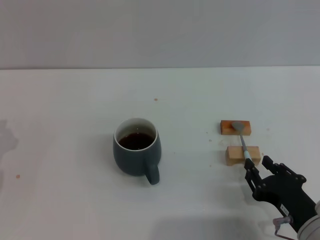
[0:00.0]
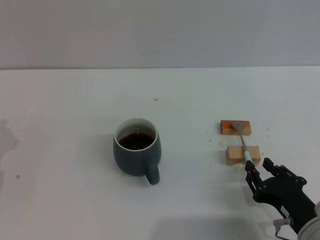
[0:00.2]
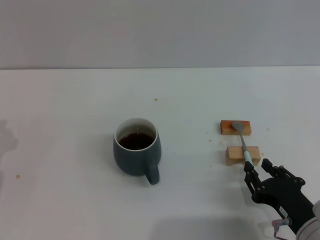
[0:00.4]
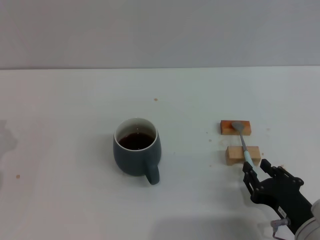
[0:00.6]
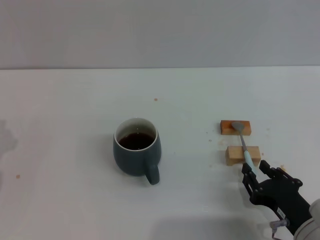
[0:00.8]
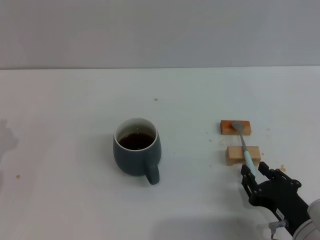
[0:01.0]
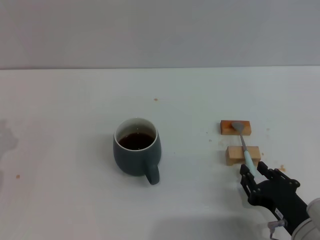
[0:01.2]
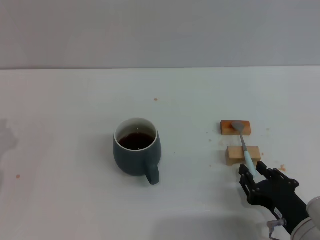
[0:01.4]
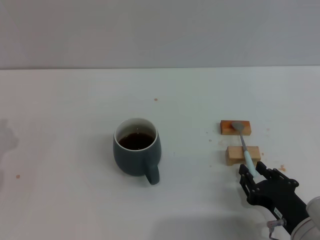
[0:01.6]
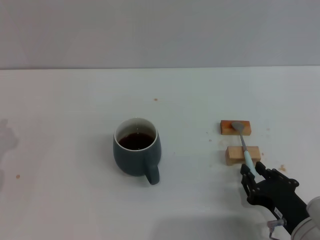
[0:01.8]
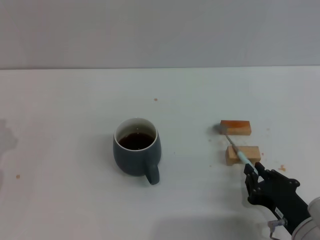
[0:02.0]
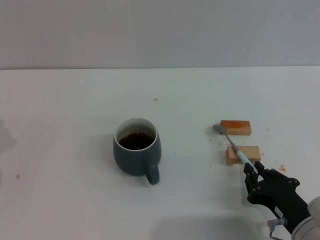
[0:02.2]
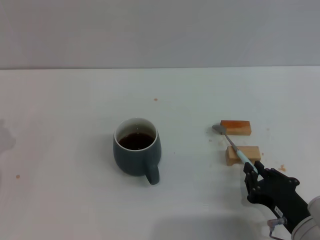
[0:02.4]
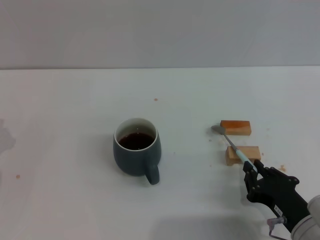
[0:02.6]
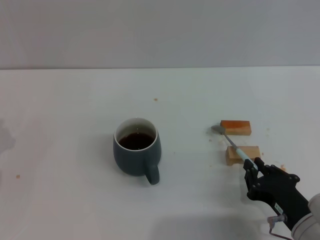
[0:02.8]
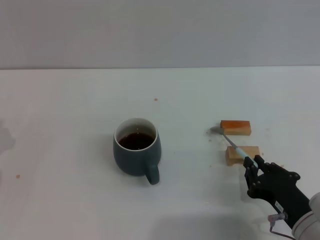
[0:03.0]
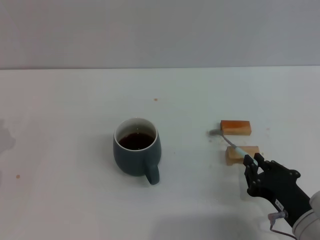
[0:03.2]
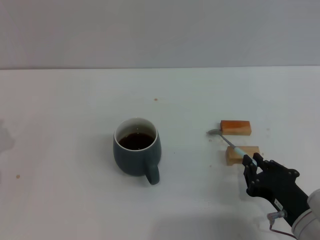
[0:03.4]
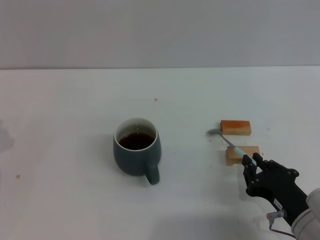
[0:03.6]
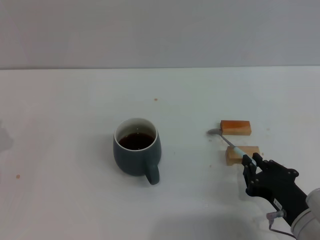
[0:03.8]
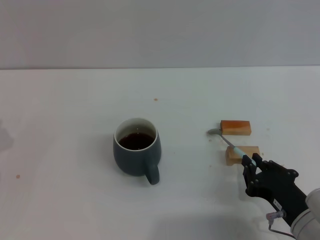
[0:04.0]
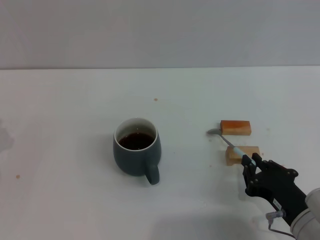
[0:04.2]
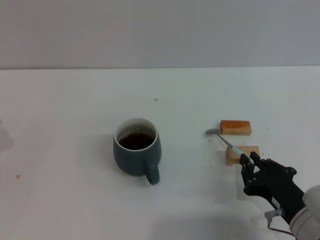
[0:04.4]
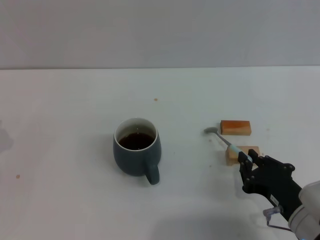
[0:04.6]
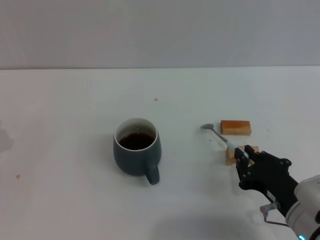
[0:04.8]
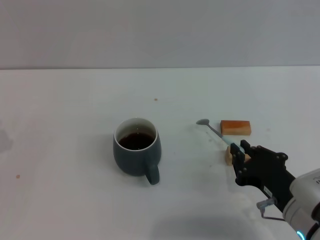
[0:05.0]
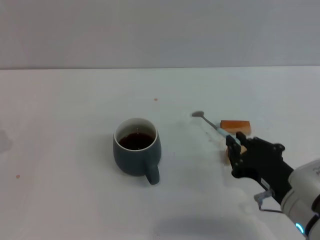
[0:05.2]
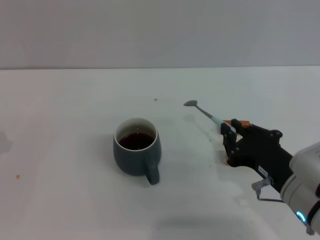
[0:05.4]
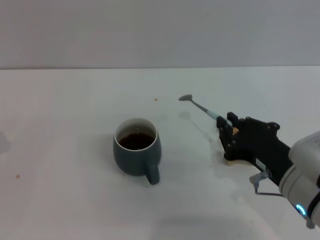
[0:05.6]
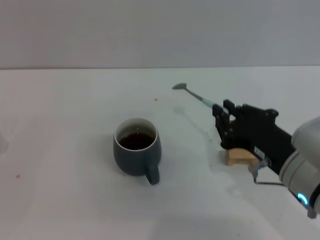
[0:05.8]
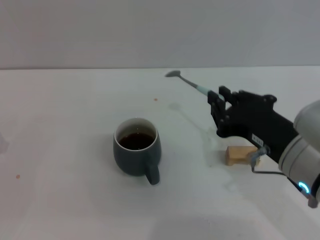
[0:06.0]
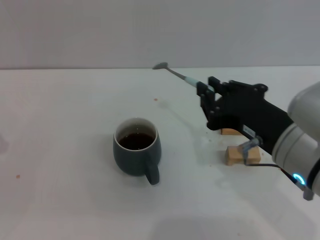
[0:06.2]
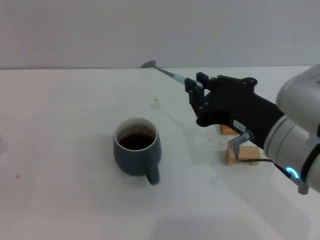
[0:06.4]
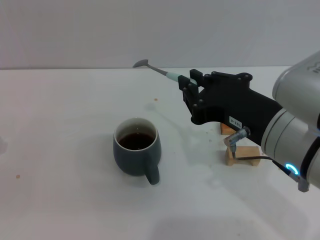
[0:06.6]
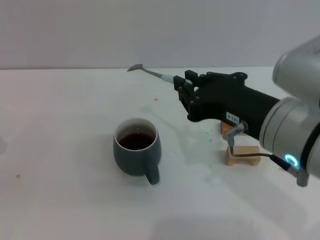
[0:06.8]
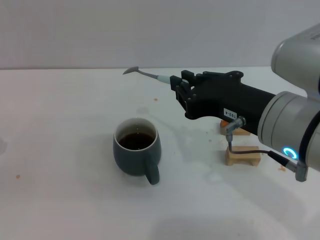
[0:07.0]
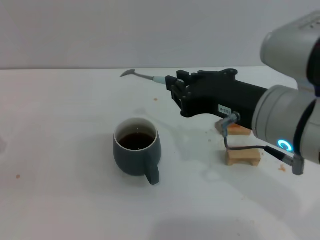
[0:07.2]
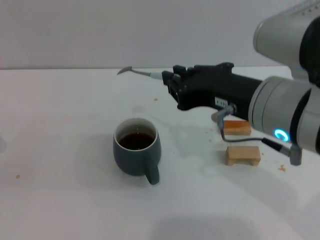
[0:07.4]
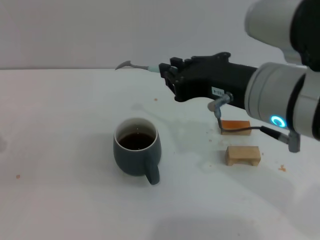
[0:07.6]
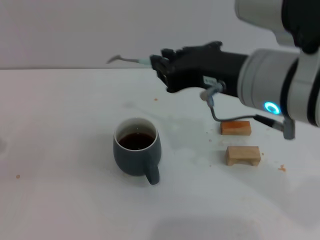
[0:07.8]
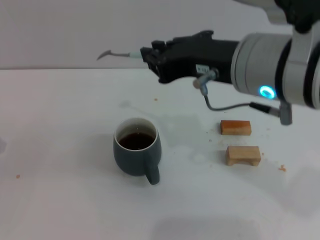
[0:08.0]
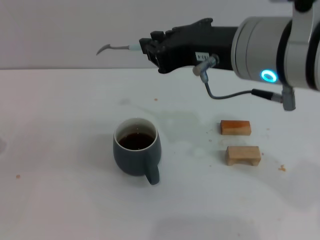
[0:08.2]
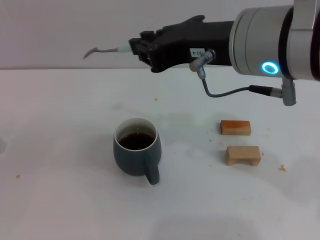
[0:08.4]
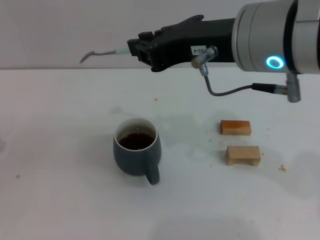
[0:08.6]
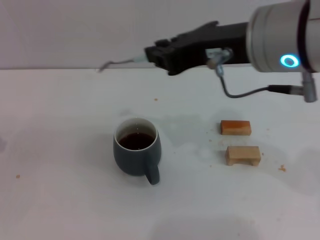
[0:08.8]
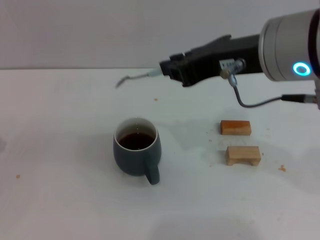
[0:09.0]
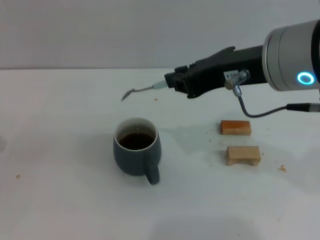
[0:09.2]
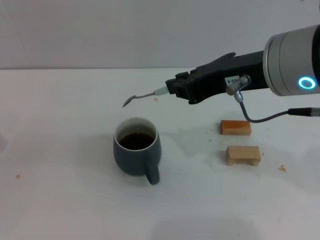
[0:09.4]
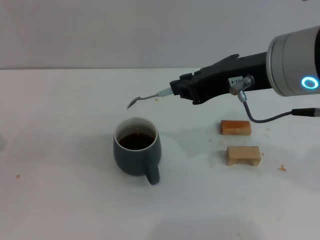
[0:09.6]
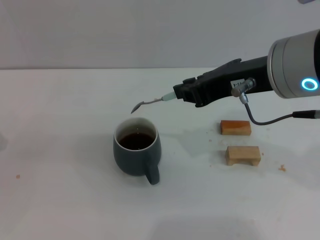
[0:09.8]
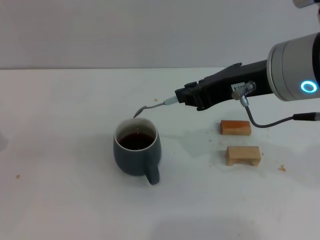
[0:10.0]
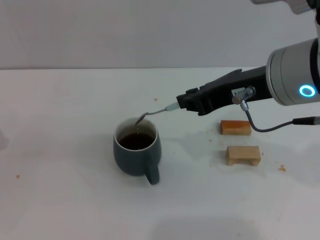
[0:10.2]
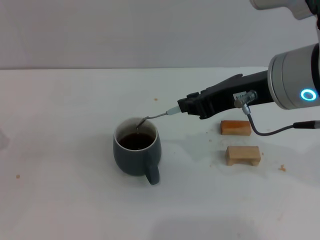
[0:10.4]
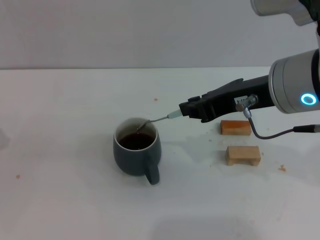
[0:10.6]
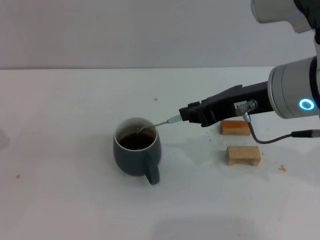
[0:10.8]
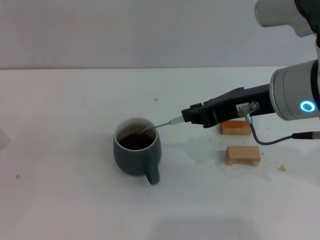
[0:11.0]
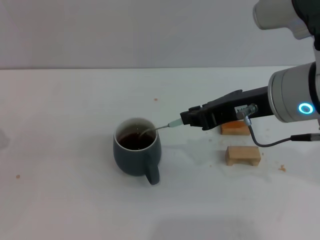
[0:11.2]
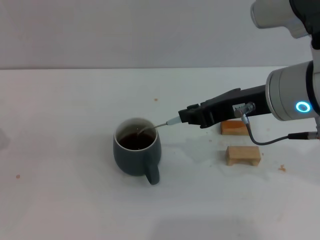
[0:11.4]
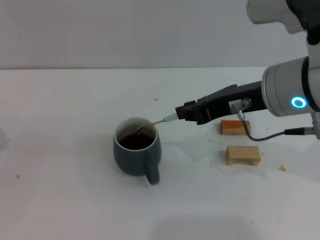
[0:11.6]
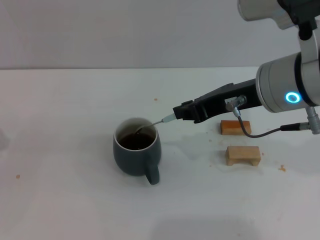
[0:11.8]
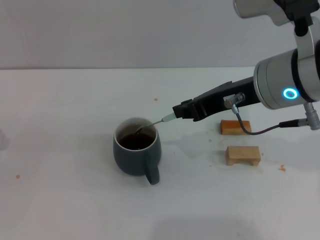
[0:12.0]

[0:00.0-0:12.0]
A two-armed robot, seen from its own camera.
Task of the whole recording: Move the grey cup to the center, lift the blue spoon, stir it three times in the cup, and put the spoon into the cup.
Step, 0.0 to 5.8 s: Pick up the spoon with the right gripper.
0.0 to 1.6 s: Both grippers stay about where they are.
1.6 to 3.0 s: The right gripper closes.
3.0 to 4.4 s: Neither gripper changes place.
4.4 to 6.0 s: The right gripper shifts some 15 cm upward.
6.0 to 7.6 s: The right gripper travels upward by some 10 cm.
7.6 to 9.0 s: The right gripper shifts by some 5 cm.
9.0 to 10.4 s: There are only small adjustments of the grippers.
10.4 to 12.0 s: The grippers stay close to where they were, moving slightly.

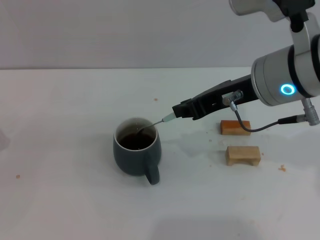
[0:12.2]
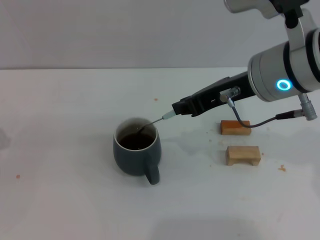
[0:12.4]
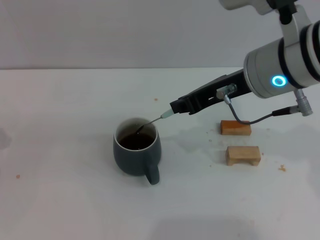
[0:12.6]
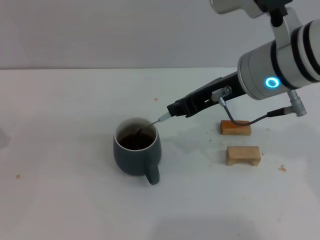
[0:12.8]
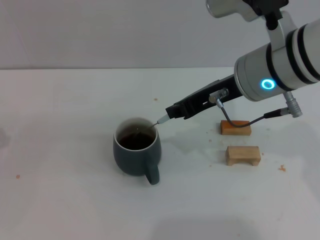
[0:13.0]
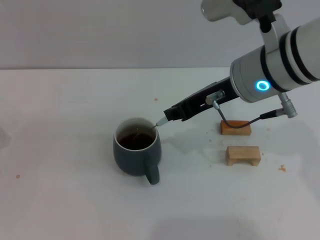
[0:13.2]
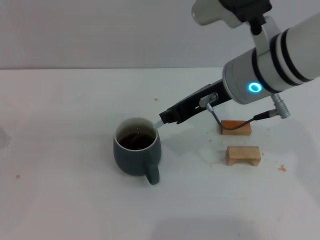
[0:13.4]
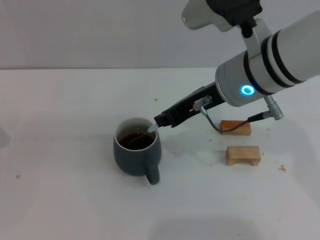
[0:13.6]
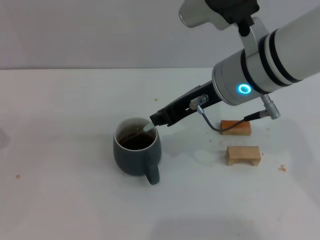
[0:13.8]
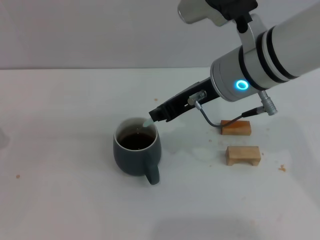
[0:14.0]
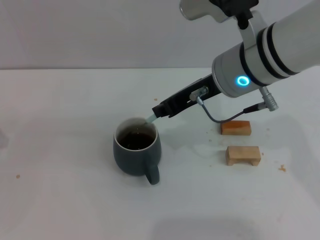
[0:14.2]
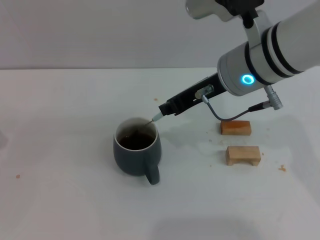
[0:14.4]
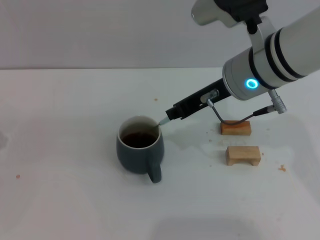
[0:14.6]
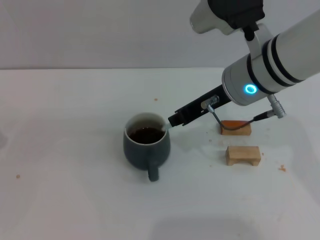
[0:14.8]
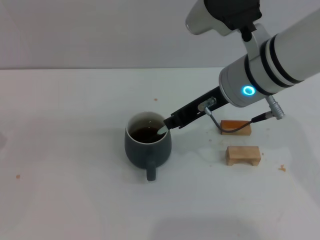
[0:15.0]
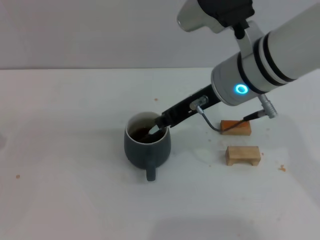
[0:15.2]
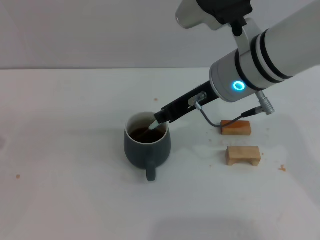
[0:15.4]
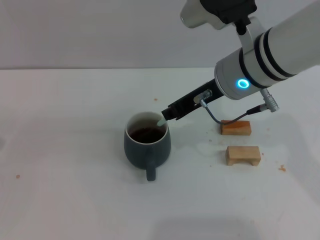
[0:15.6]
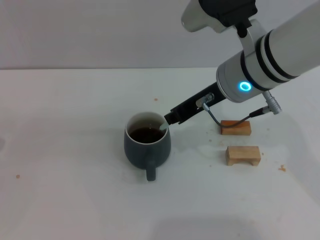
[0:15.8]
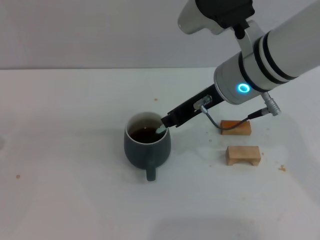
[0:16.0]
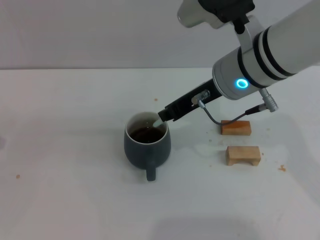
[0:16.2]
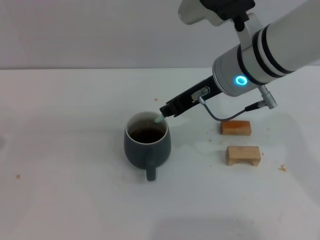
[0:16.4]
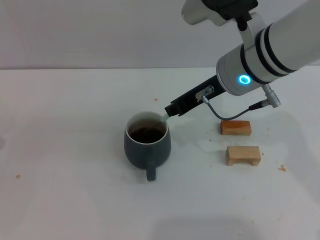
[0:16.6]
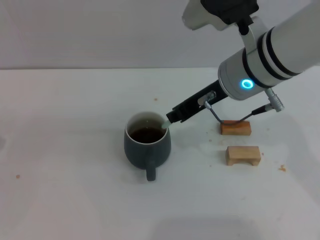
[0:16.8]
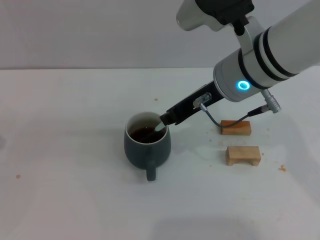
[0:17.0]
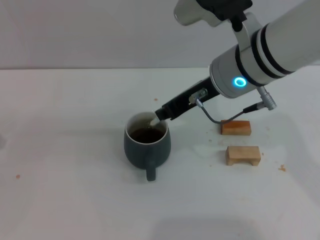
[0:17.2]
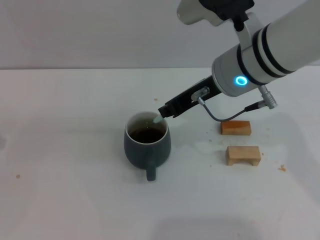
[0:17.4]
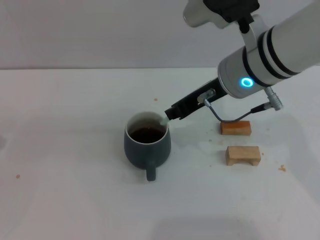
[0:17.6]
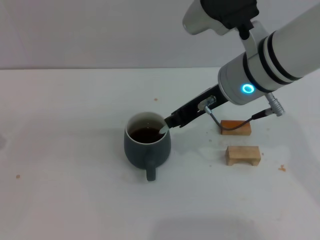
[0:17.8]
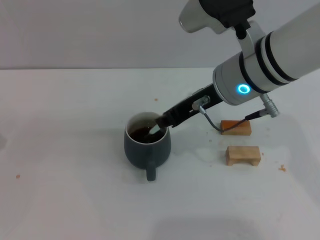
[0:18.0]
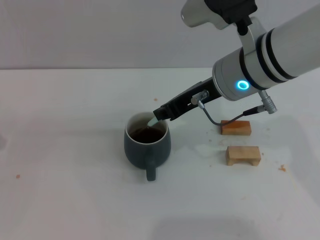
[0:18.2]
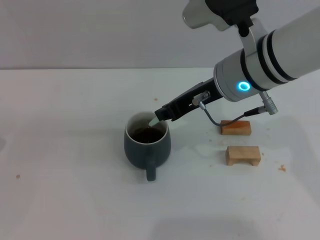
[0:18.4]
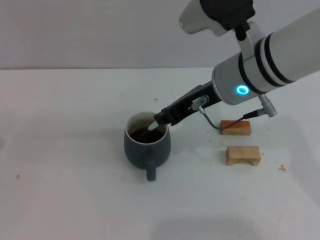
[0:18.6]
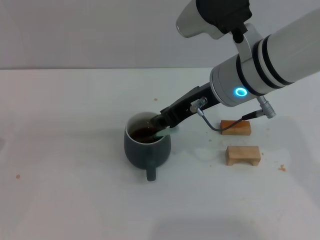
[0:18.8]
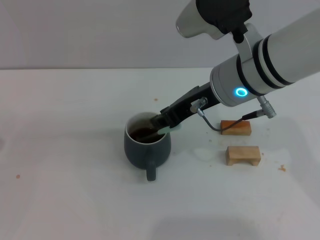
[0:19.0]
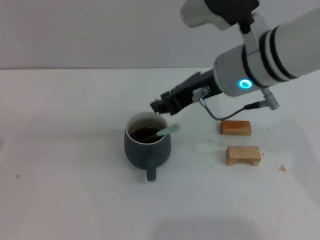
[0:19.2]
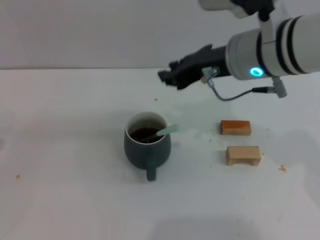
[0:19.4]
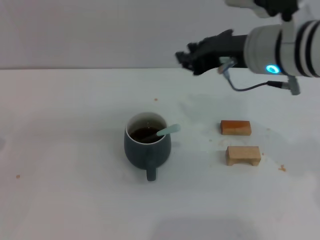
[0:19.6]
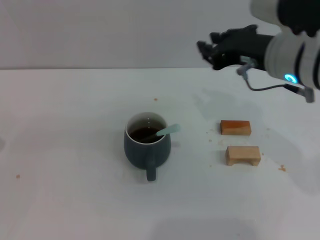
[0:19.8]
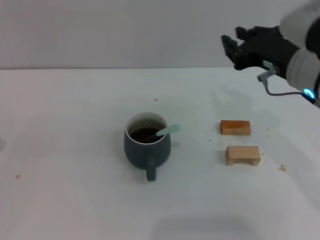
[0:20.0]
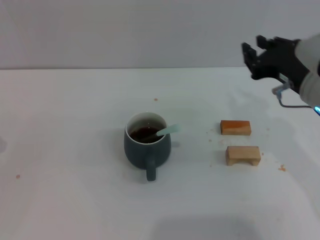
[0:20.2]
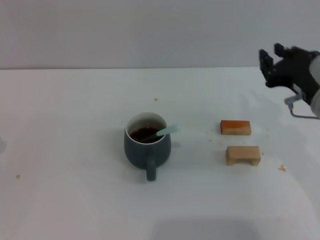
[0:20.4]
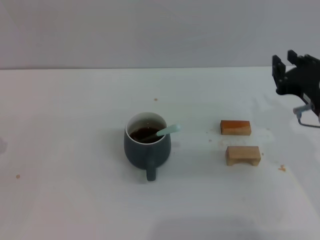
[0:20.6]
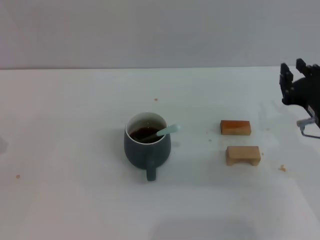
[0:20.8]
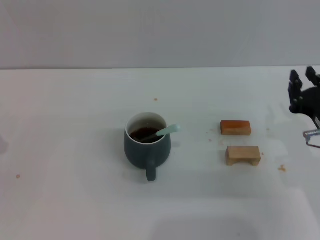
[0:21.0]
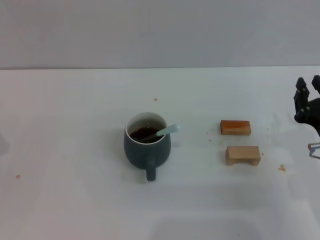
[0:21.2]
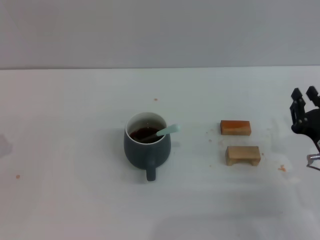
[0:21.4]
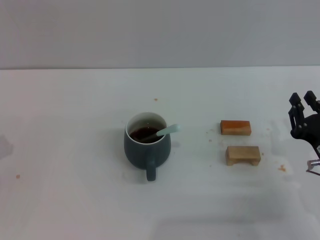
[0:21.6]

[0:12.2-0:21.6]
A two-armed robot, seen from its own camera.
Task of the whole recording: Move the grey cup to the center, lift the blue spoon, stir it three times in the cup, and put the spoon into the cup.
Step, 12.2 to 19.2 s: Stir the coffee in the cup with the right gripper.
12.2 to 15.4 s: The grippers make only small movements.
15.4 to 17.0 s: The two grippers keep their place.
17.0 to 18.4 s: The grippers make only small movements.
18.4 to 20.0 s: The right gripper moves to the right, some 10 cm.
20.0 to 21.6 s: The right gripper shifts about 20 cm downward, backward and to the right.

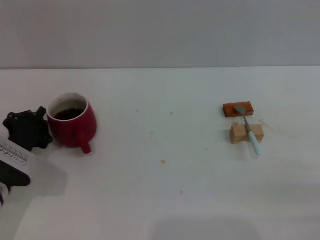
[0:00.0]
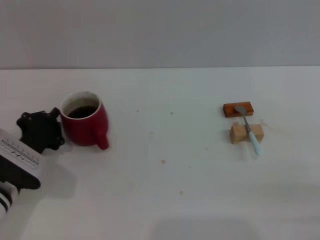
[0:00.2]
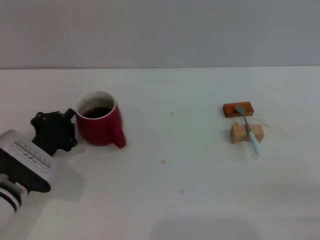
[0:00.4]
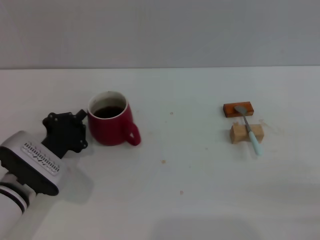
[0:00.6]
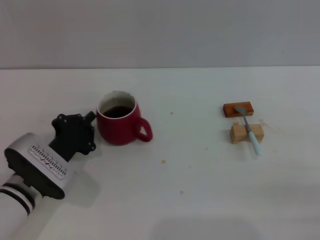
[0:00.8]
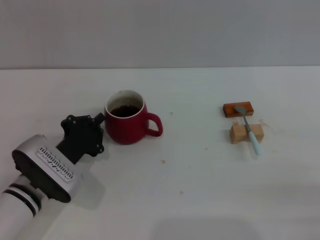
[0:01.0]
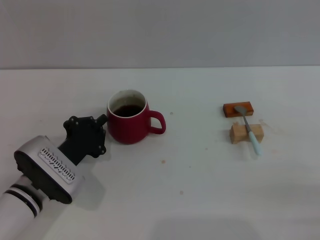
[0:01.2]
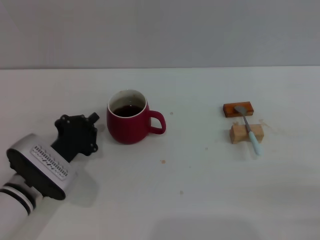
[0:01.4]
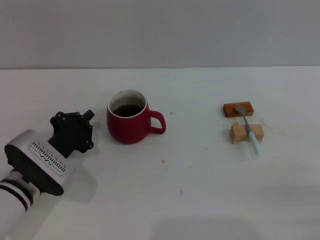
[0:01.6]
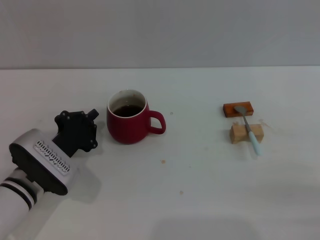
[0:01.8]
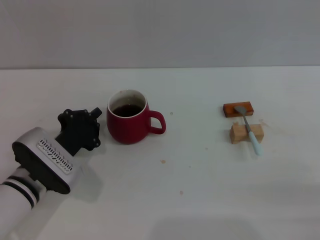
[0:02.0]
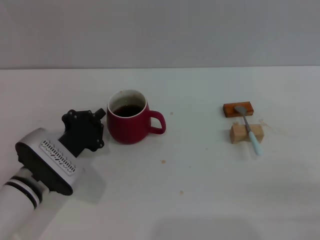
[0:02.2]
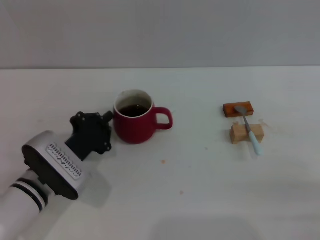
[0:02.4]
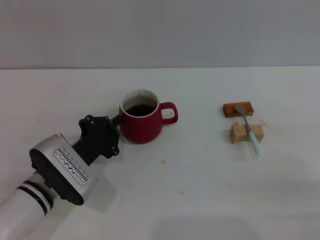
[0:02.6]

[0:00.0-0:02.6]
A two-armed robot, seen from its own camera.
Task of the whole recording: Move the red cup to the center, lift the blue spoon, stir it three times in the cup, and put the spoon into the cup.
0.0 to 1.2 s: The left gripper heads to the right, covering some 5 cm.
1.2 to 2.6 s: The grippers move only a little.
